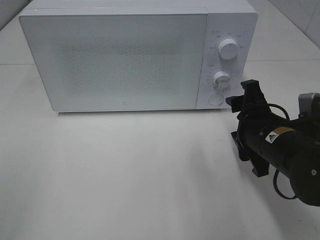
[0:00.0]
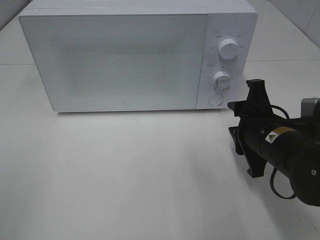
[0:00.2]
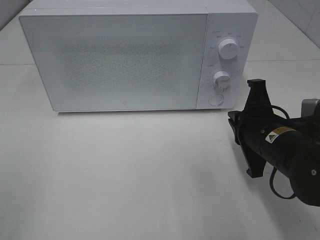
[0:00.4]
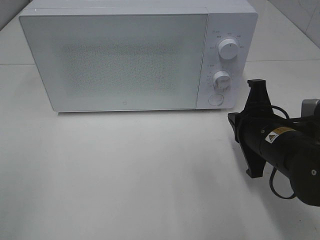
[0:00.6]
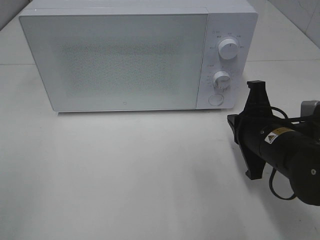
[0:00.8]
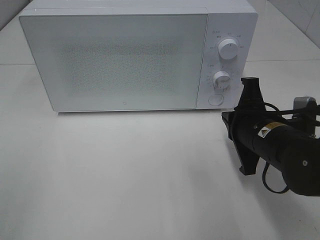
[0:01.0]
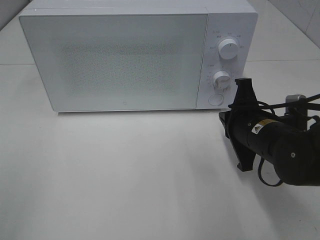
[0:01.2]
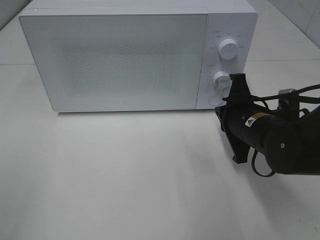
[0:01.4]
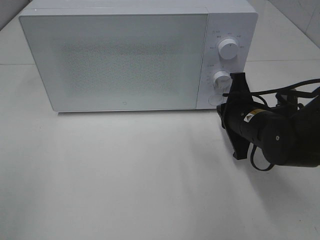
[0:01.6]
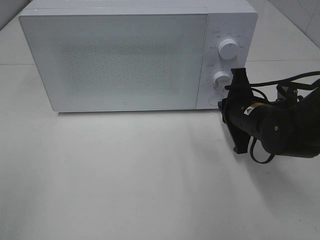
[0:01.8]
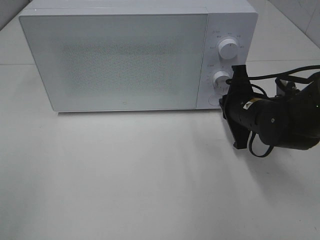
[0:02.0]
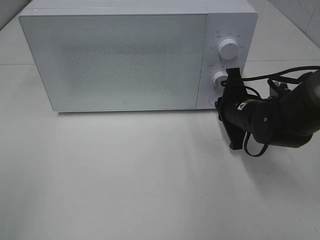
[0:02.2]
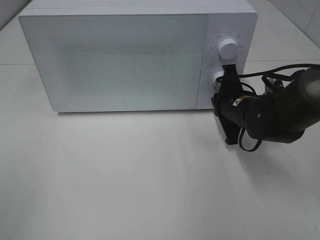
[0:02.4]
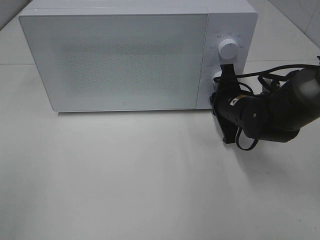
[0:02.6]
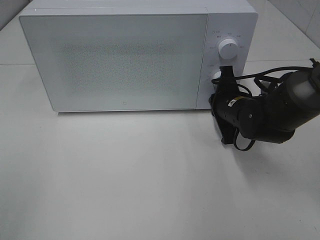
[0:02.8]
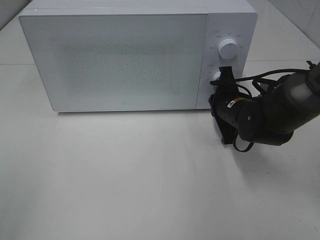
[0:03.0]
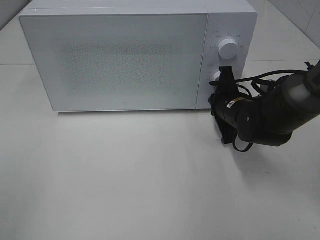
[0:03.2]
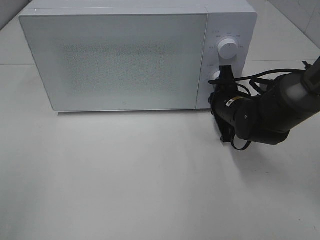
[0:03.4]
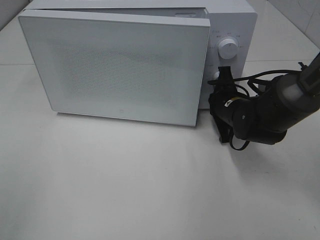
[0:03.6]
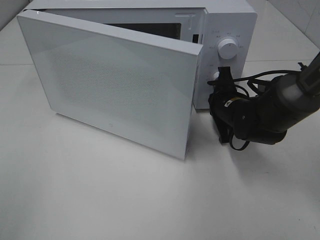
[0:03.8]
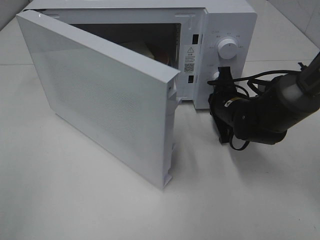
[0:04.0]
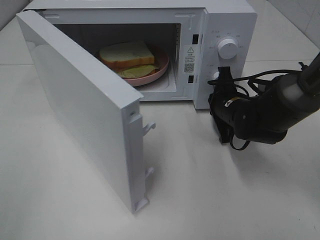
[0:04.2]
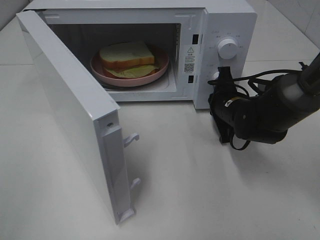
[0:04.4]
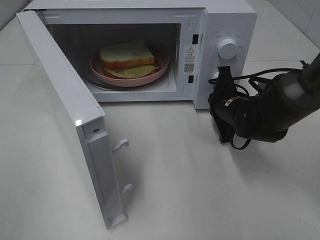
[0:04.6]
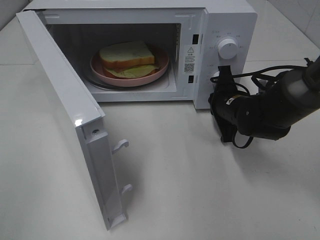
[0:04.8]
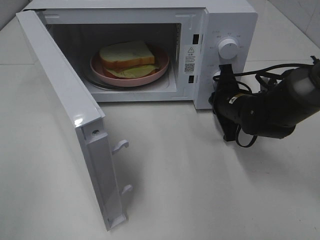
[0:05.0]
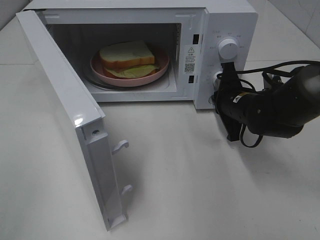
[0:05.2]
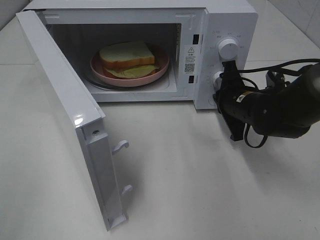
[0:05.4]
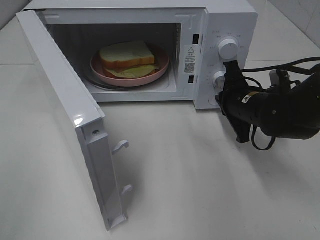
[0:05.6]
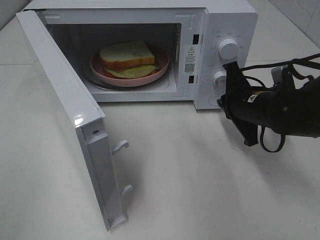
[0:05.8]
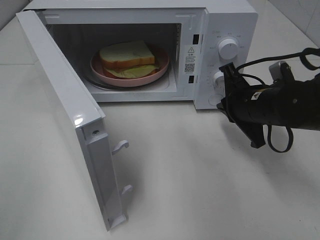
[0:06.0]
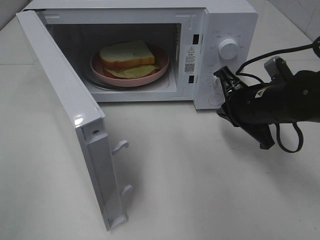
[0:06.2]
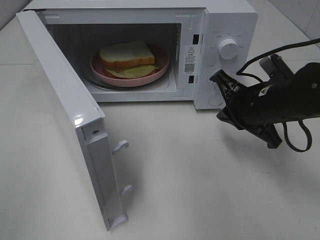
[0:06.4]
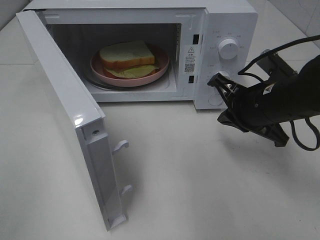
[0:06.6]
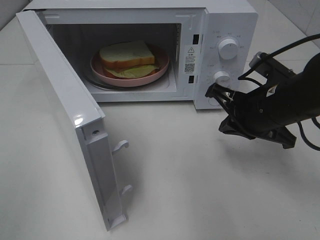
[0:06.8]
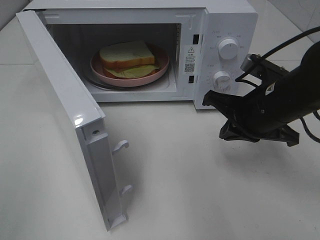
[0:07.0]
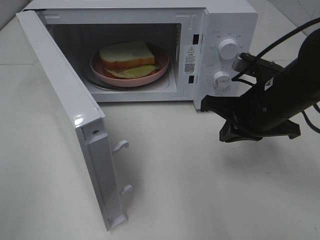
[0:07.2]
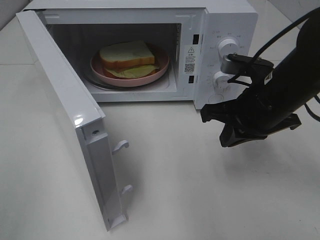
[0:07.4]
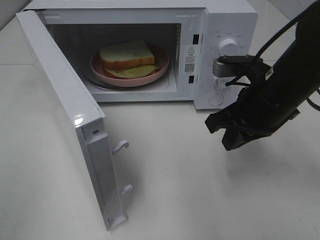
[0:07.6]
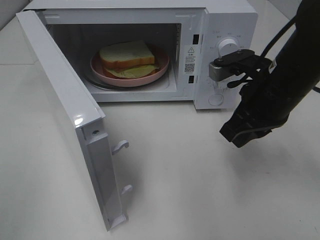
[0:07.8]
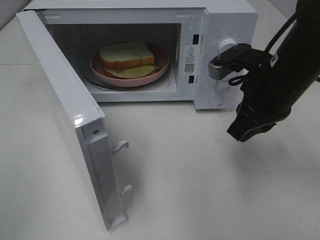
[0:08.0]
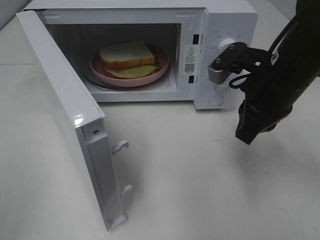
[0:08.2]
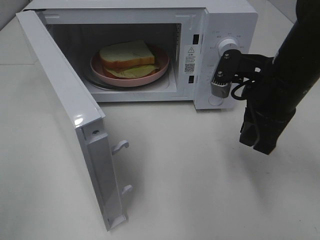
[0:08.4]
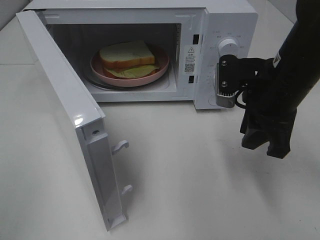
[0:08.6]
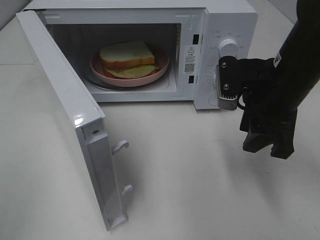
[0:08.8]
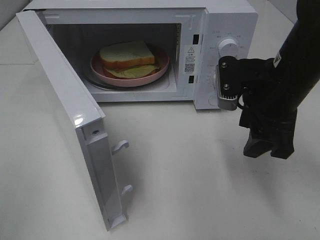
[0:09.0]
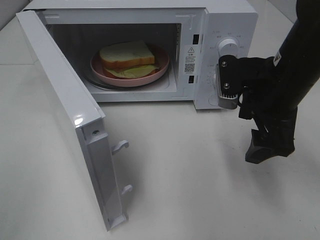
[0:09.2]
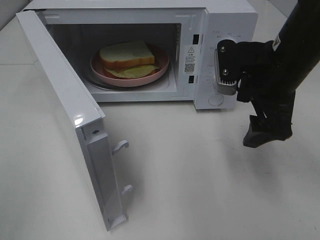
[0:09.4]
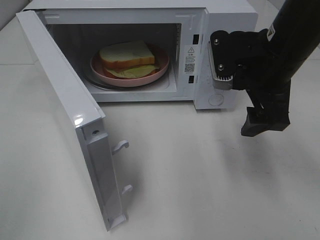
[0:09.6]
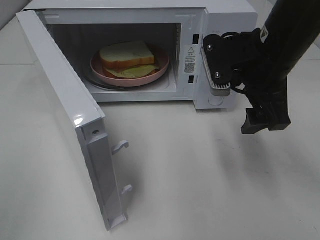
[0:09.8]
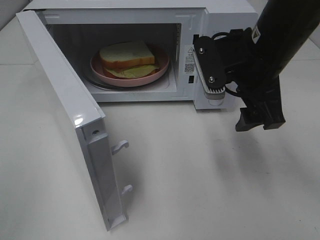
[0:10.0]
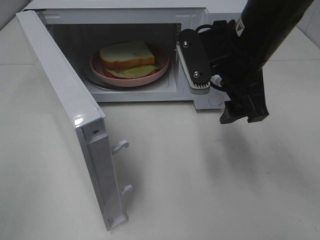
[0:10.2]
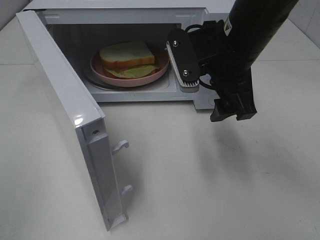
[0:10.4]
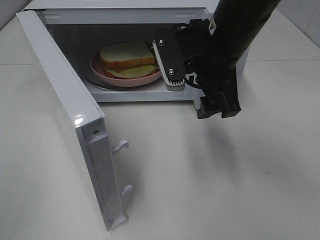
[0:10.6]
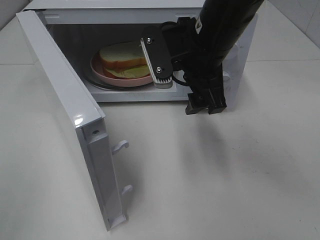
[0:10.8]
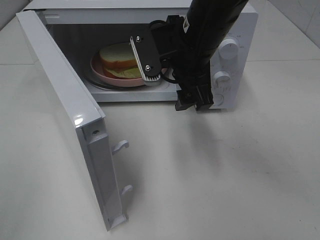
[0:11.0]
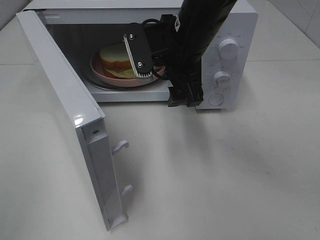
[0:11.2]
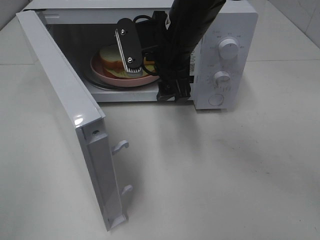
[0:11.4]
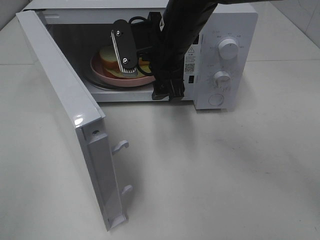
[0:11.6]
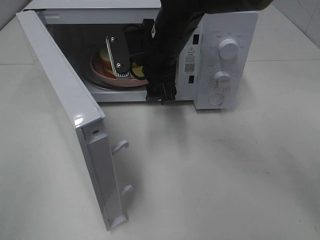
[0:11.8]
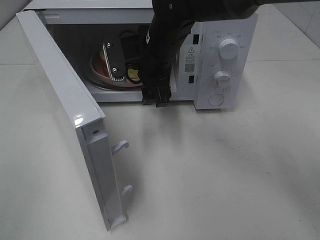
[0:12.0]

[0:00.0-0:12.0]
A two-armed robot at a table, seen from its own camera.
Task of the whole recording: Heat Sandwich.
Step, 0:00.0 to 0:05.6: Right hand: press the switch.
0:00.0 to 0:01.6: The right gripper goes roughly 5 cm forward, and closes.
0:01.6 to 0:03.0: The right gripper travels forward by about 5 cm.
0:04.4 to 0:06.0: The right gripper moves backward and upward, some 10 cm.
0:06.0 to 0:07.6: The right gripper heads upward, covering about 5 cm.
0:07.6 to 0:09.0: The right gripper opens its fingers.
0:09.0 to 0:10.4: The right gripper heads to the left, covering some 5 cm.
0:10.4 to 0:12.0: The right gripper is displaced to the left, forward and downward by some 15 cm.

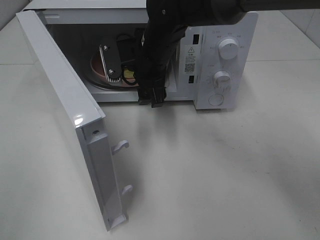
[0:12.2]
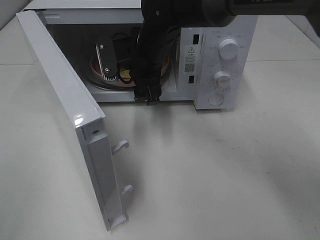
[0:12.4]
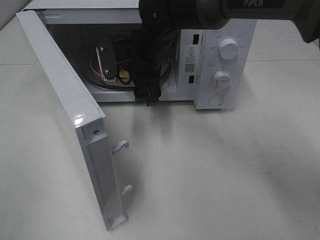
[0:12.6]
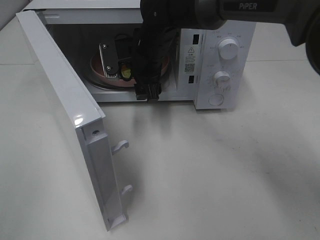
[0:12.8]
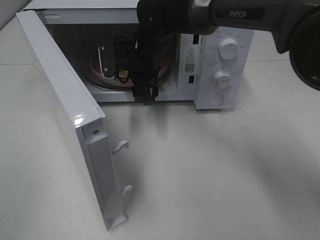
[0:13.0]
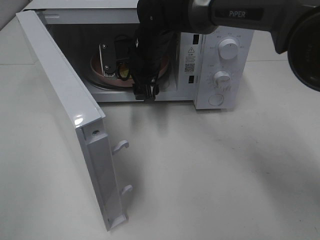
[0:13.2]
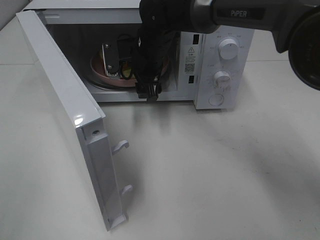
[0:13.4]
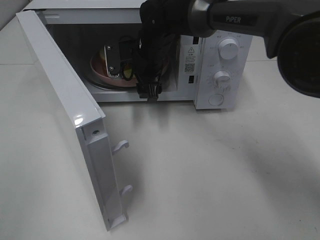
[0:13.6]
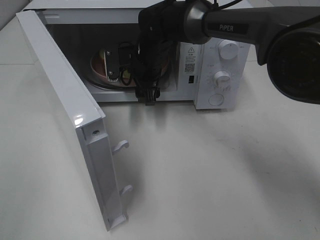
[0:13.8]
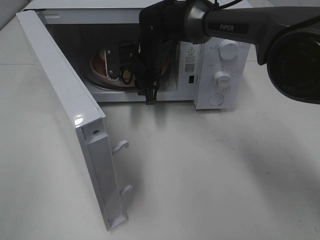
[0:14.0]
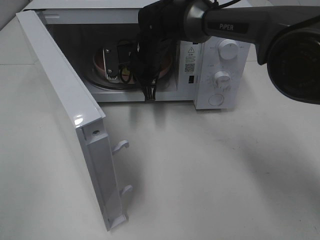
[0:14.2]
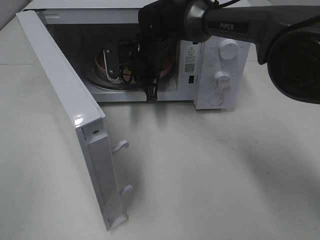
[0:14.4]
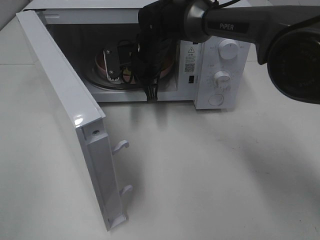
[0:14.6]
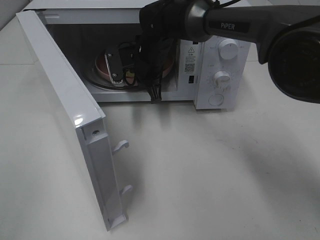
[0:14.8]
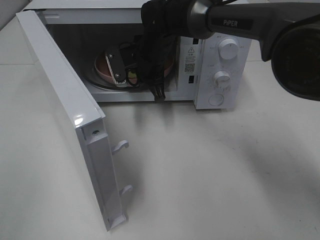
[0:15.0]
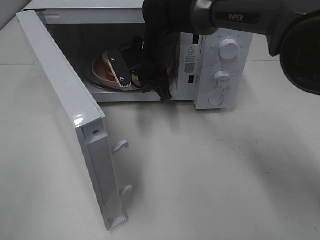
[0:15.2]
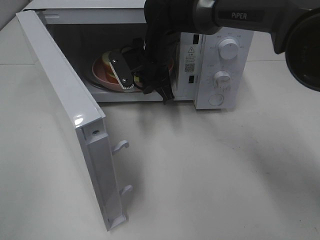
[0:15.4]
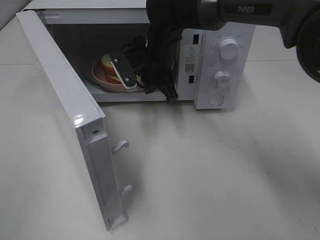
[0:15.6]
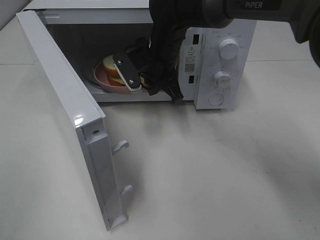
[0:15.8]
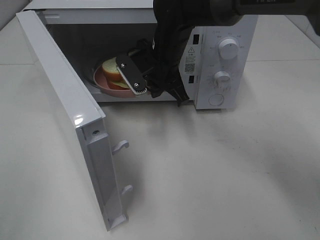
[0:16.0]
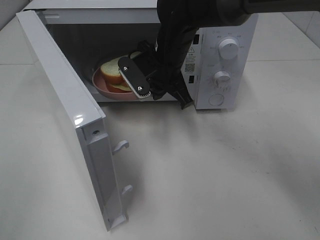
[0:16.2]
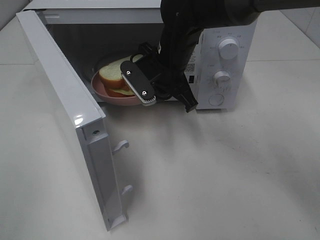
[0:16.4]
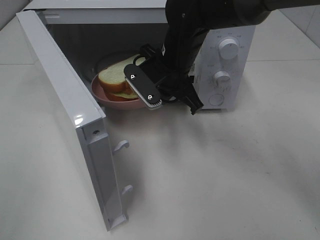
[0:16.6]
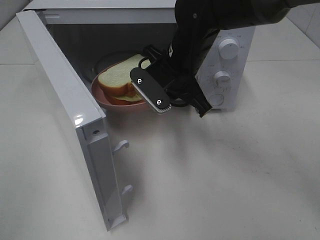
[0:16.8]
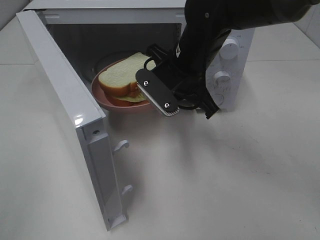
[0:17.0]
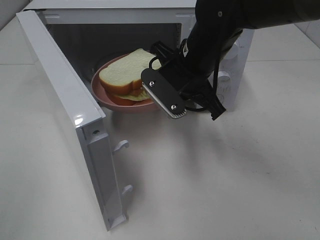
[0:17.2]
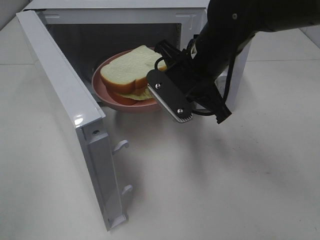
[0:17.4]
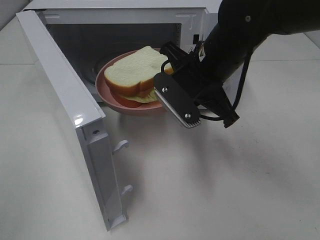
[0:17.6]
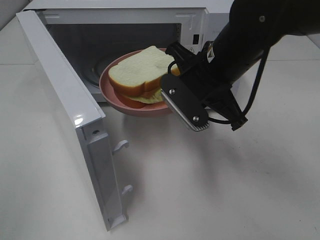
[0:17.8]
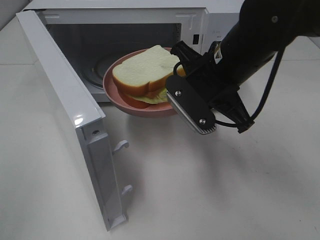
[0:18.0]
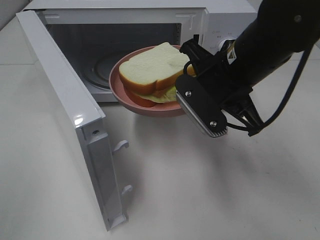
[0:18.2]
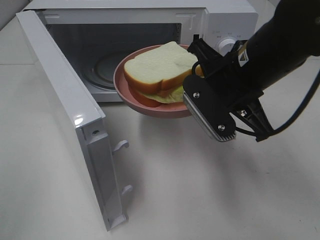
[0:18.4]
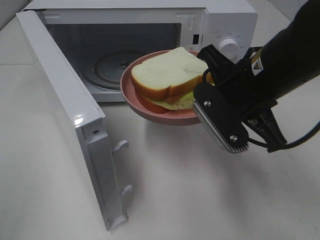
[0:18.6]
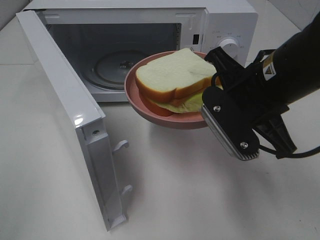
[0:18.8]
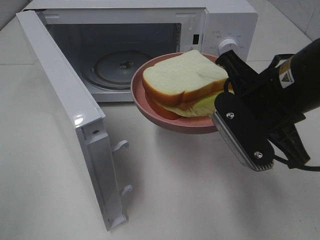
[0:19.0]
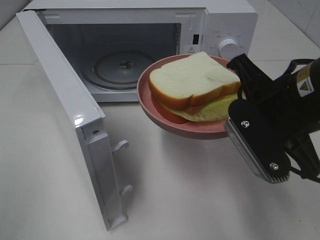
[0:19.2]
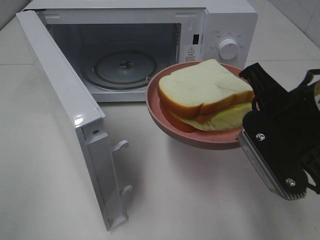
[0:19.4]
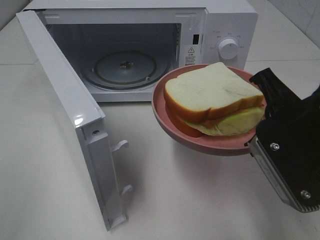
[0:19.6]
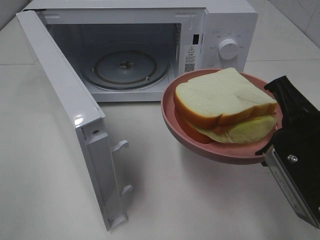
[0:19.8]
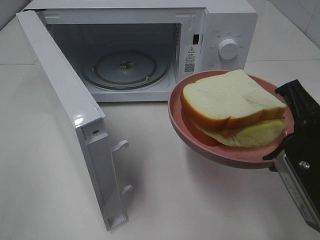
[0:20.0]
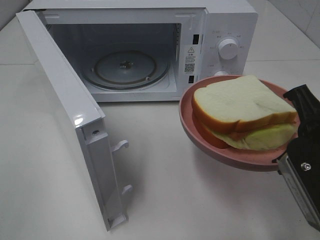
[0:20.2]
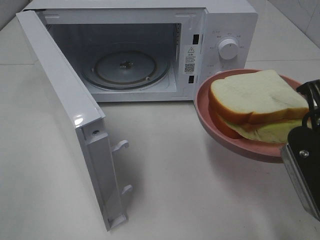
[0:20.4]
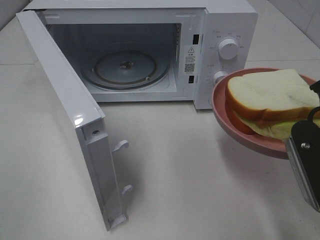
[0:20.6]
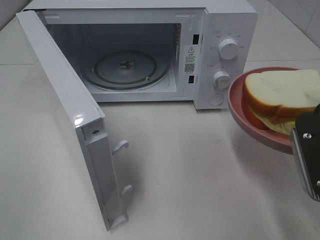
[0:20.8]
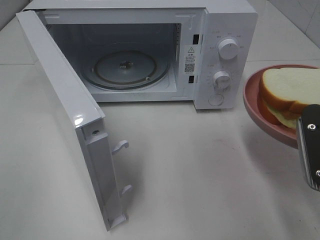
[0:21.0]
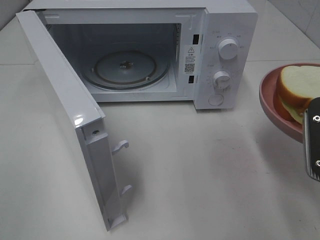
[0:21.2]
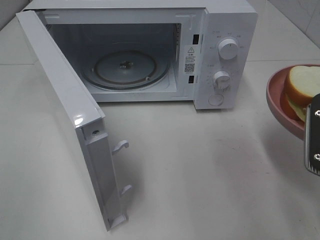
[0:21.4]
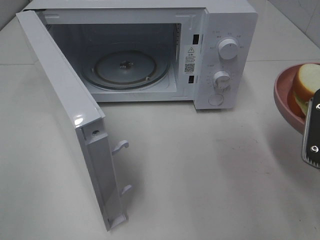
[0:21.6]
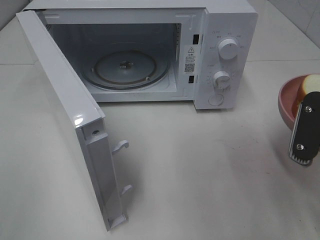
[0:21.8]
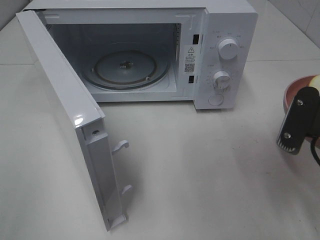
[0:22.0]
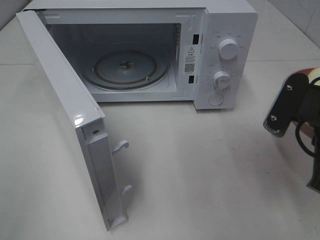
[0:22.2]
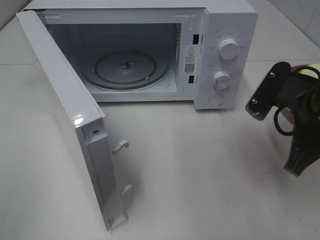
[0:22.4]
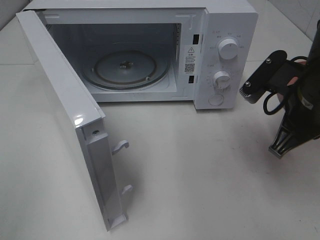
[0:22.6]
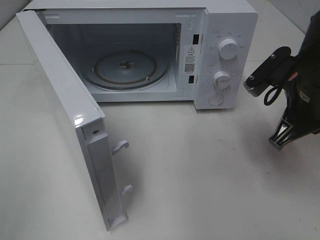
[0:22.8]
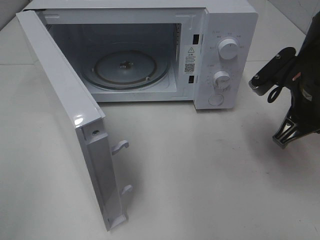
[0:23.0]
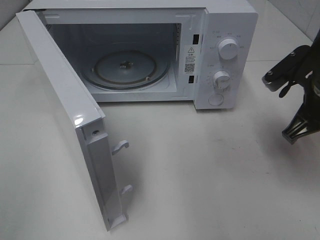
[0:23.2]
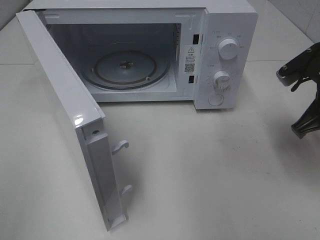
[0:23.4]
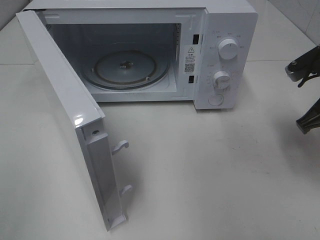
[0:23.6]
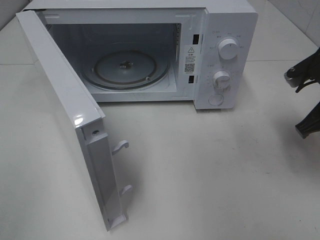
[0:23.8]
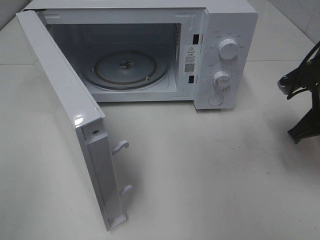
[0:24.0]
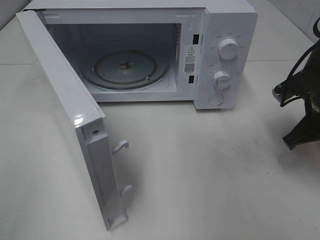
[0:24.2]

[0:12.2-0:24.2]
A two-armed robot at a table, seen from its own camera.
Task of the whole recording: Heat Sandwich.
Step, 0:12.2 to 0:14.6: Right hand: grab the plate with the sandwich.
0:12.2 to 0:13.8: The right gripper travels forward by roughly 5 cm.
0:13.8 to 0:15.2: The right gripper closes its fingers.
0:15.2 to 0:16.6: The right gripper moves backward, some 5 cm.
0:16.6 to 0:18.2: The right gripper moves backward and to the right, roughly 10 cm.
0:18.2 to 0:19.8: The right gripper shifts some 15 cm backward and to the right.
0:21.2 to 0:22.6: The right gripper heads forward, covering about 10 cm.
0:22.6 to 0:24.2: The right gripper is displaced to the right, downward and forward by some 10 cm.
